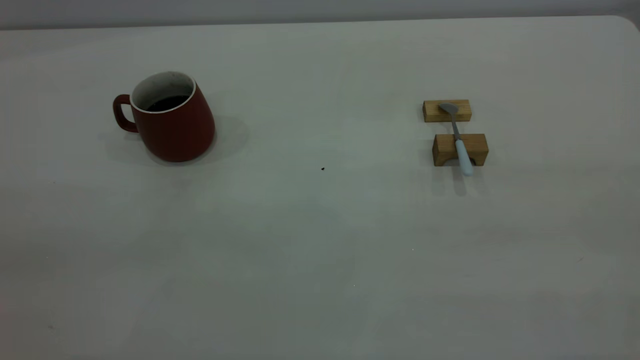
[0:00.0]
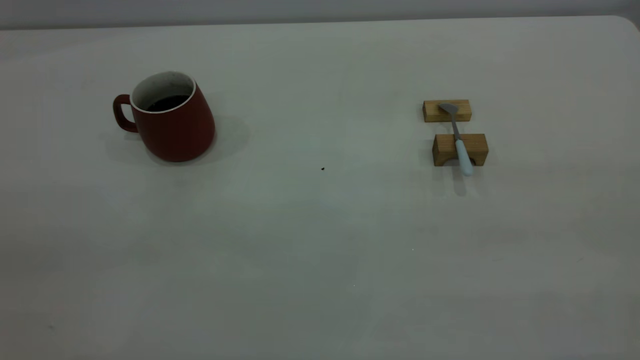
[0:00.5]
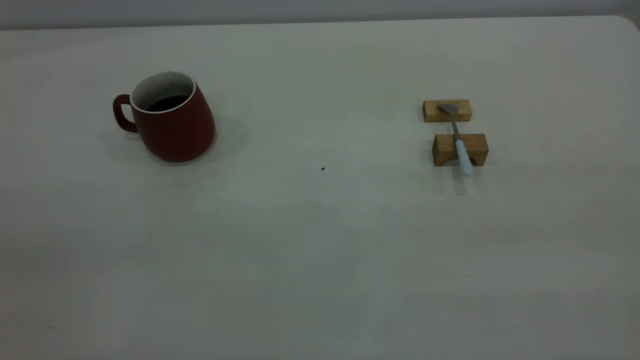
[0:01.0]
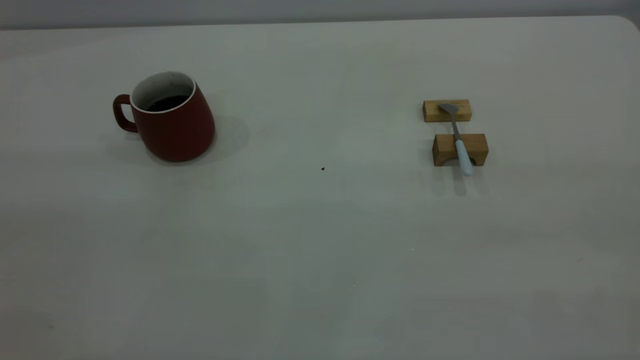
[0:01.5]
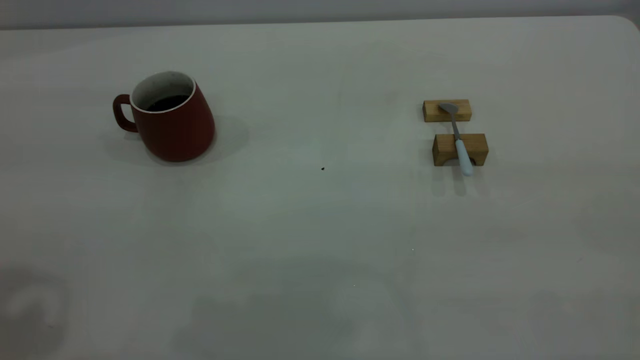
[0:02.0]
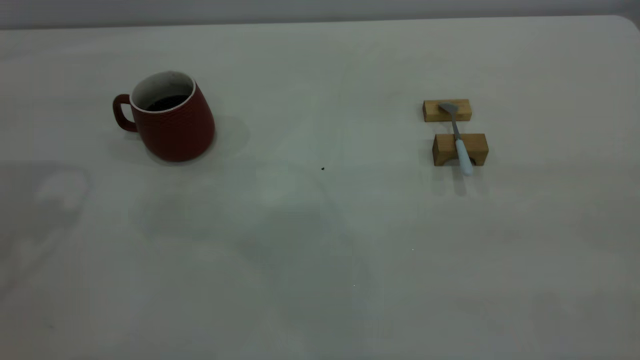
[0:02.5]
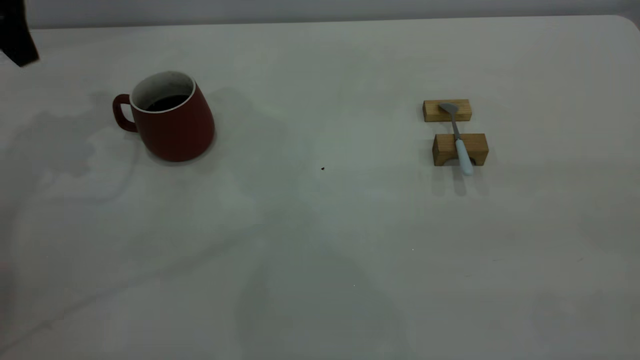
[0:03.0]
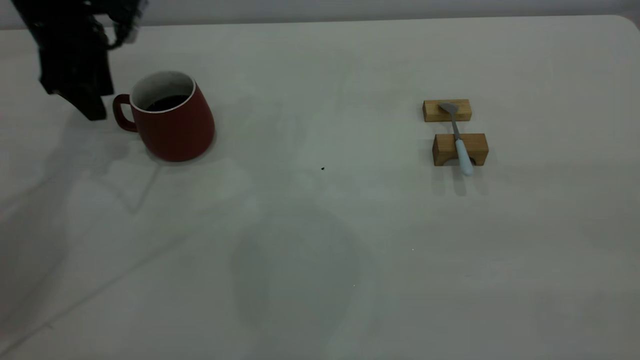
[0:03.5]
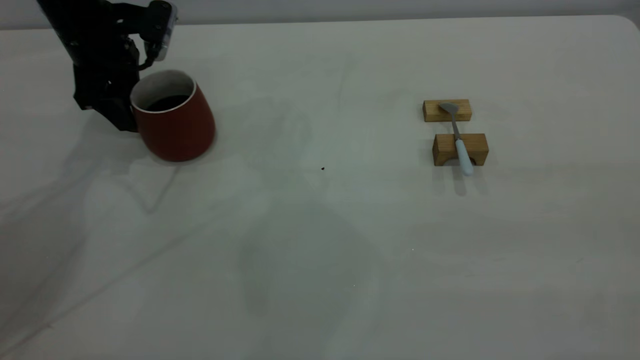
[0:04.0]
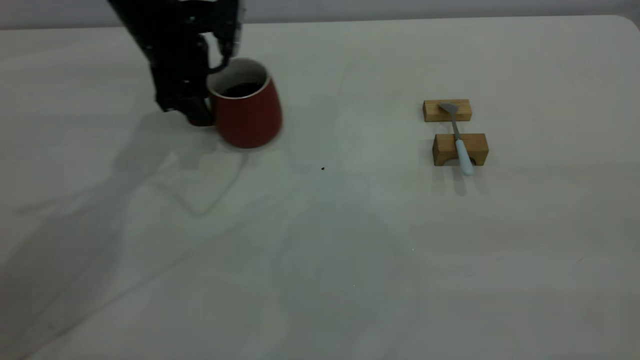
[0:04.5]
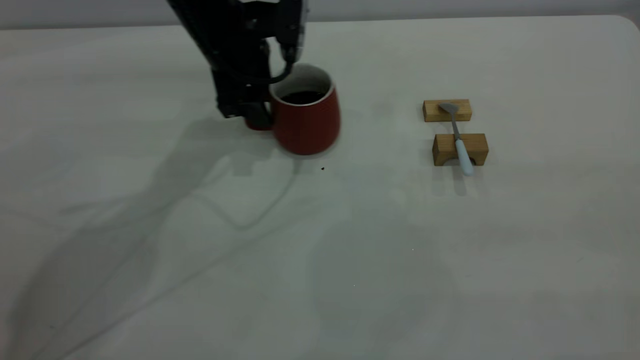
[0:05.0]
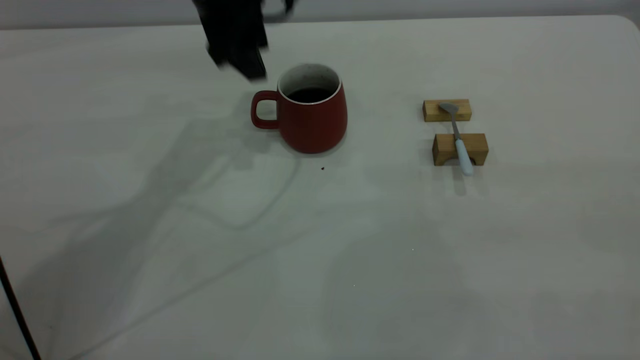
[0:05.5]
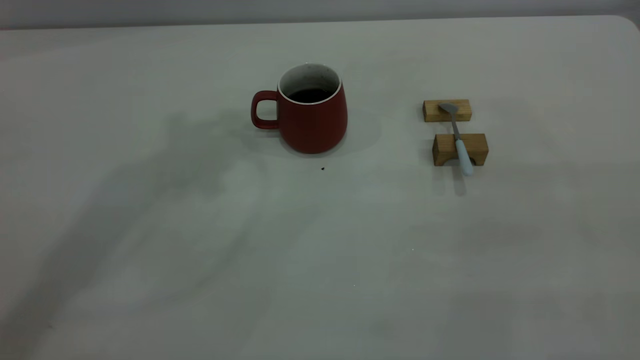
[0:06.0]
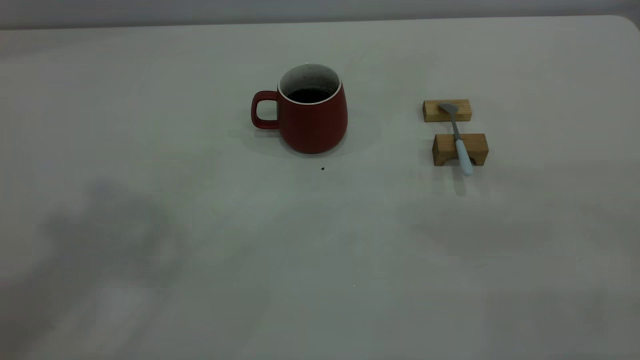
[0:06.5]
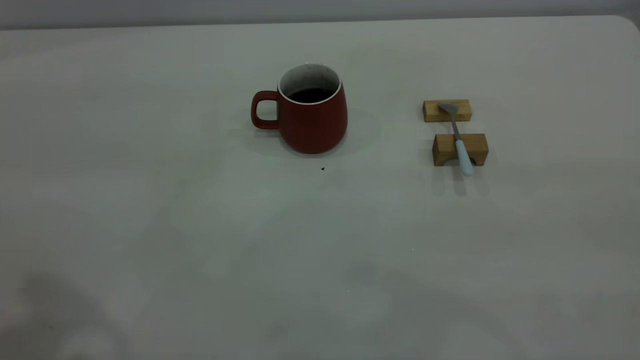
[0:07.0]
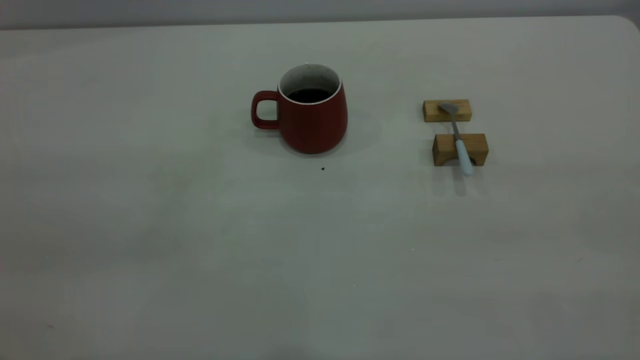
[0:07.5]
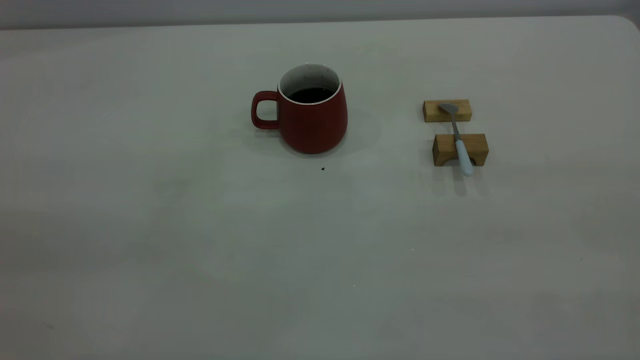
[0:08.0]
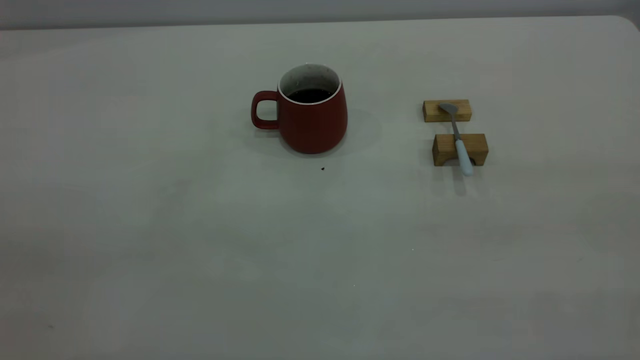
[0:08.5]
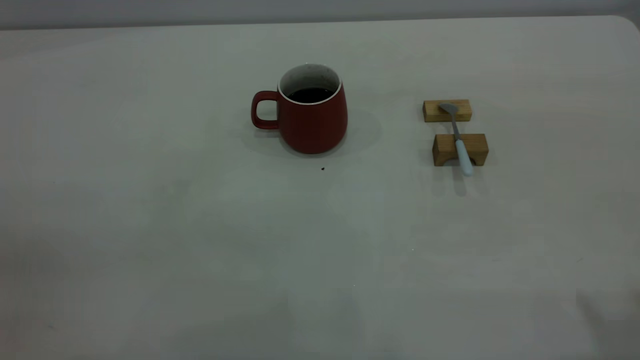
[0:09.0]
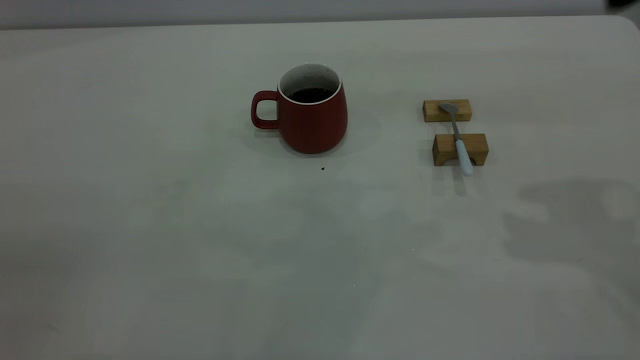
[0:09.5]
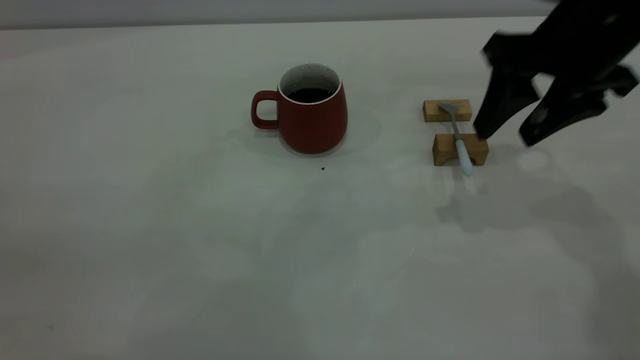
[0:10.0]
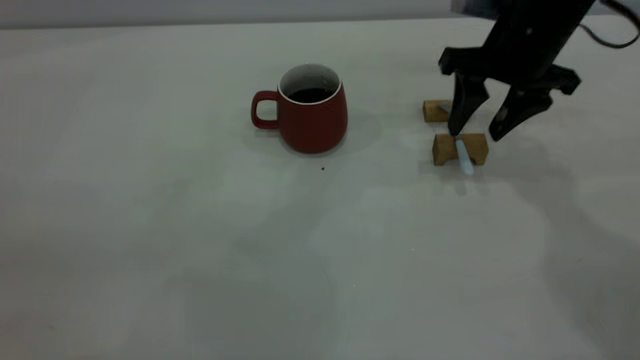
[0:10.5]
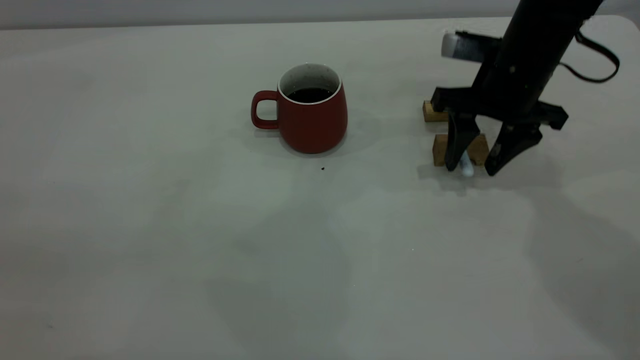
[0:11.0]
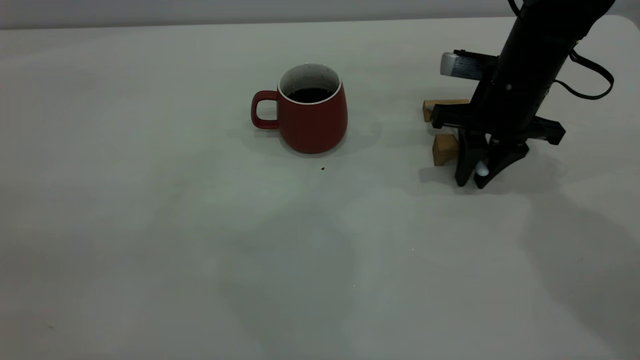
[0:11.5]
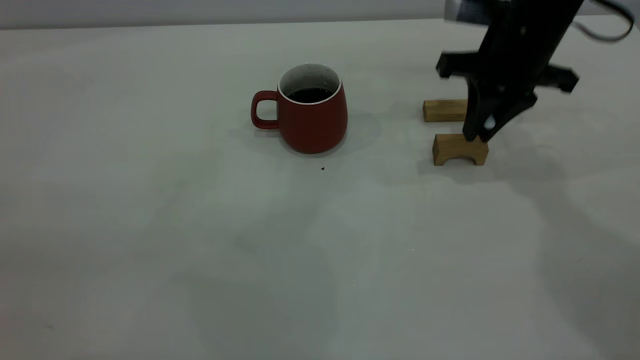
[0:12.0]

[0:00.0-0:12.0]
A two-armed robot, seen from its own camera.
Step, 0.0 to 5.0 s: Move the cup with coffee to the center of view.
Step, 6.0 to 12.0 s: Pick up the spoon.
2.0 to 4.0 s: The left gripper moves forward and downward, some 40 cm.
4.0 to 6.0 s: The left gripper moves upward, about 35 cm.
8.0 to 10.0 s: The right gripper travels forward and downward by approximately 35 cm, and opens.
10.0 to 12.0 s: The right gripper shifts approximately 5 cm forward, reaches approximately 10 cm downward, then returns, and closes.

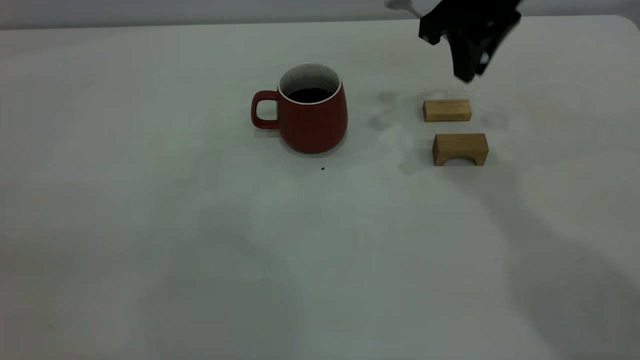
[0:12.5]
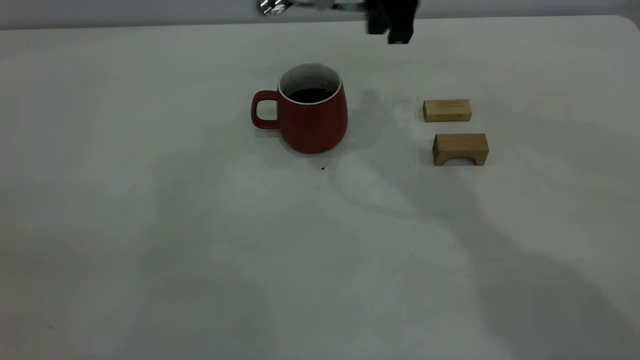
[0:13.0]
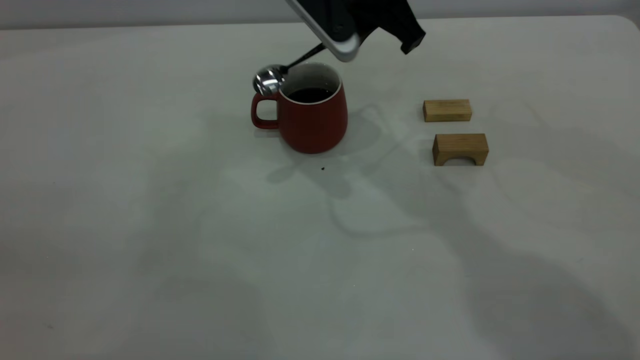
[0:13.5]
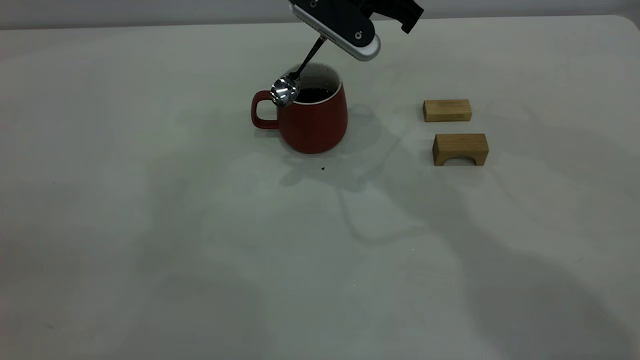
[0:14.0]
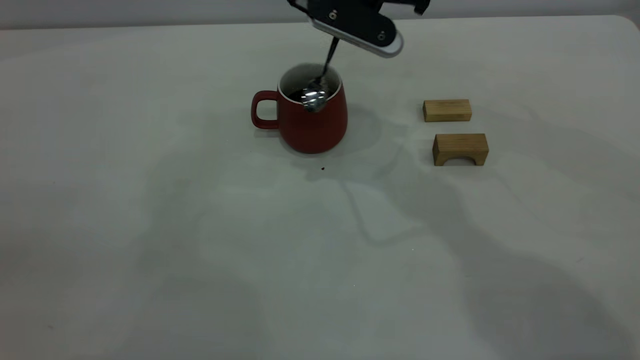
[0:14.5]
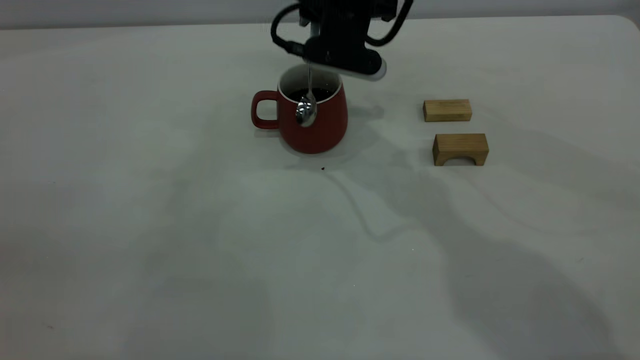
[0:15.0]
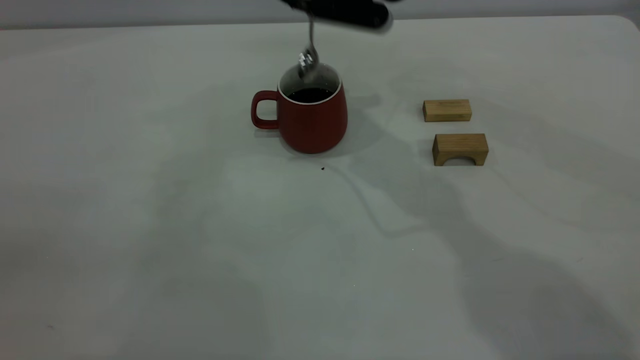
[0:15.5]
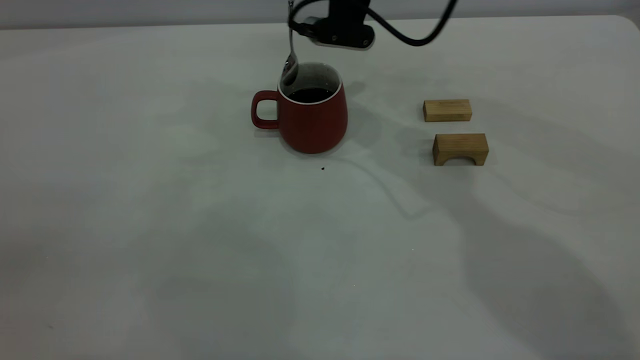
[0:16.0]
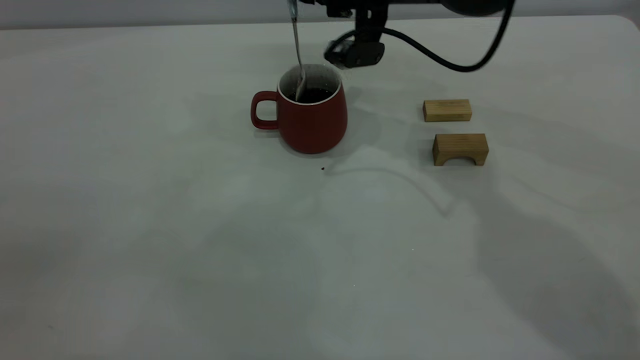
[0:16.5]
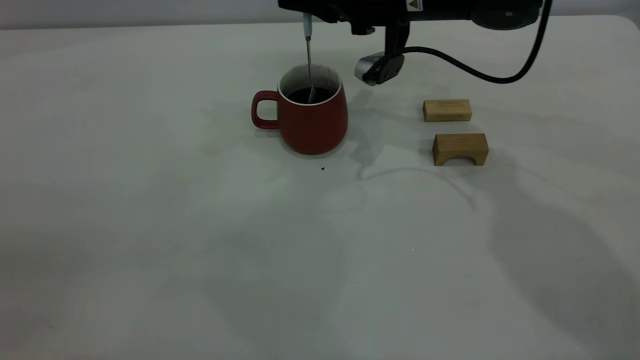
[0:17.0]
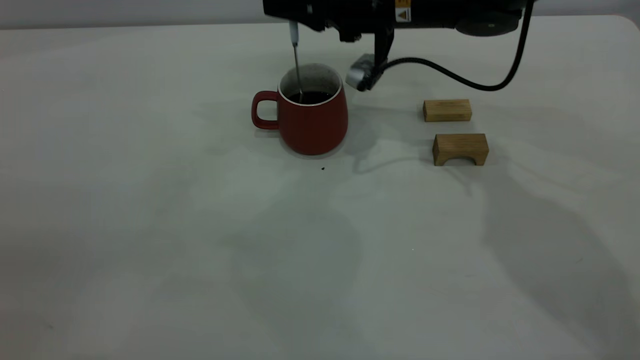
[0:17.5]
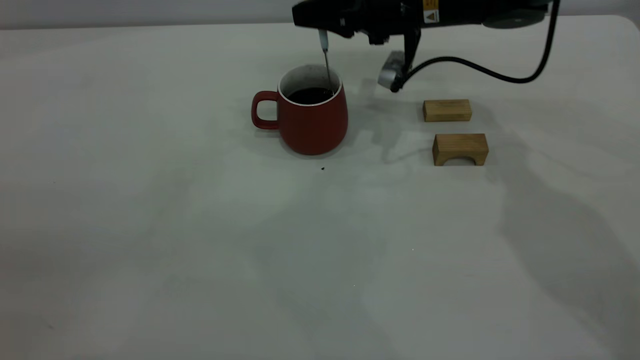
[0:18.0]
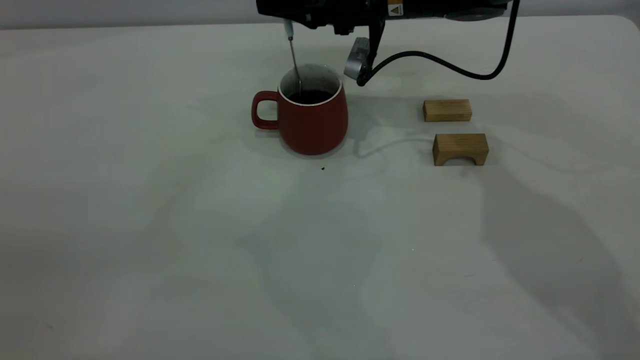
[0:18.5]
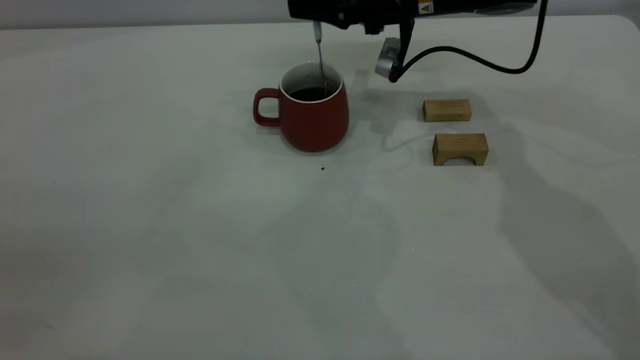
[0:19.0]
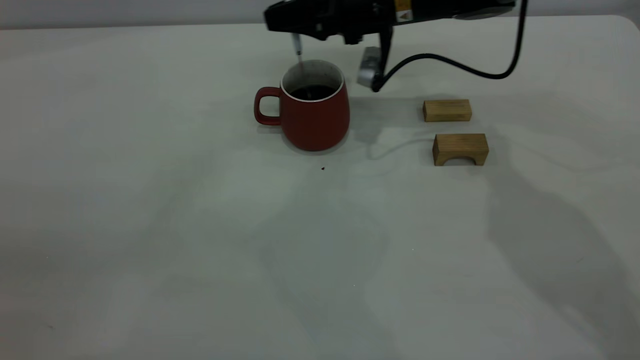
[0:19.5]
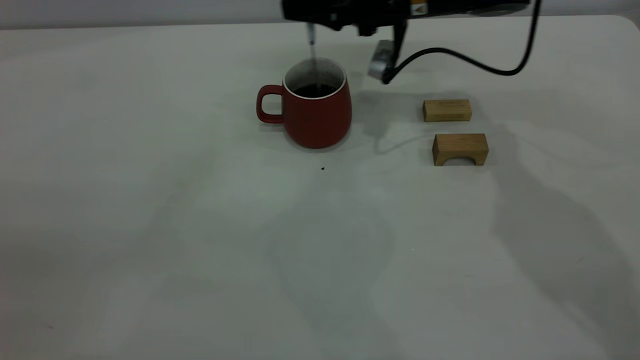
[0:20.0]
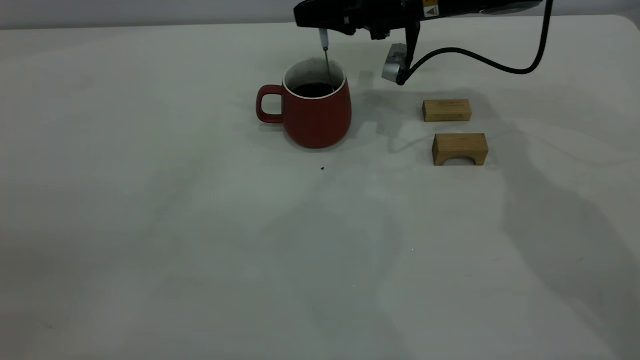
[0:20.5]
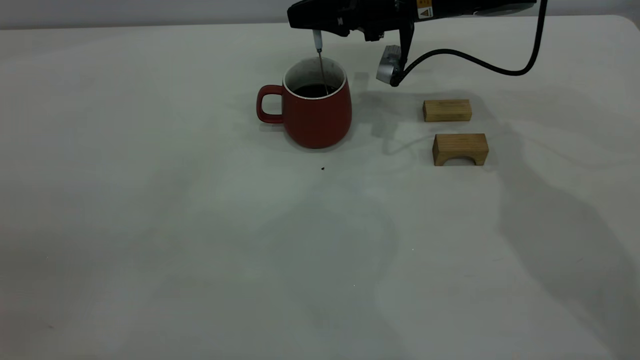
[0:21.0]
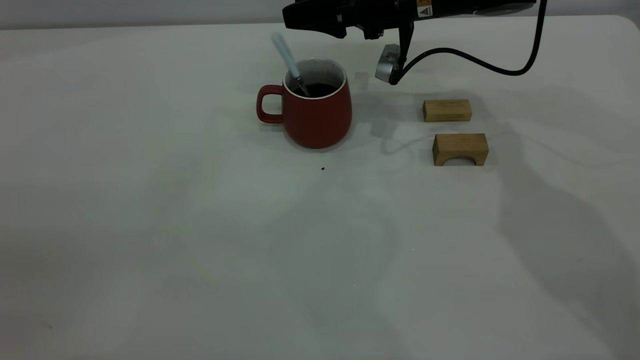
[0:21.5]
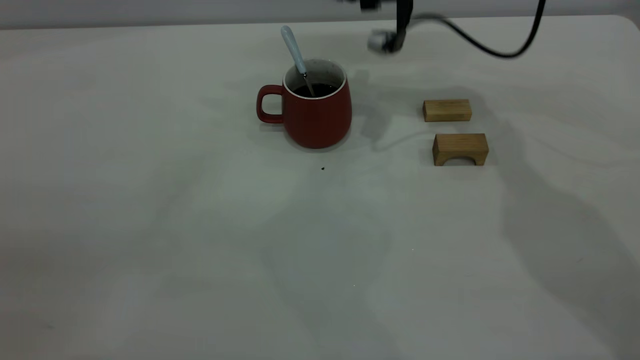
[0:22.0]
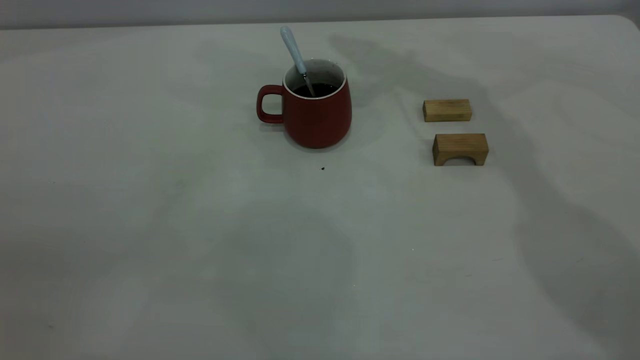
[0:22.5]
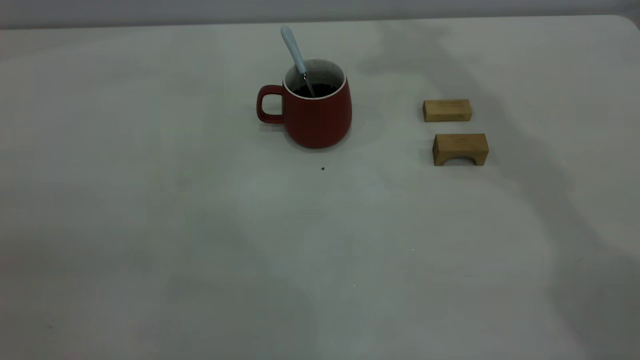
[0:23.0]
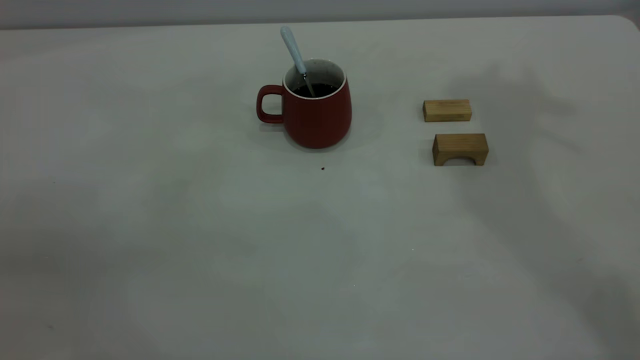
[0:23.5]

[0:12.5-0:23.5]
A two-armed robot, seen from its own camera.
Step, 12.5 to 21.5 s: Stir the coffee in the cup.
12.5 to 14.5 s: The right gripper heads to the left, covering about 10 cm.
16.0 to 18.0 s: The right gripper shifts roughly 10 cm downward and to the right.
18.0 to 20.0 s: The grippers move only a little.
20.0 to 21.5 s: The right gripper opens its fingers.
21.5 to 23.5 s: The right gripper travels upward by about 40 cm, and closes up.
